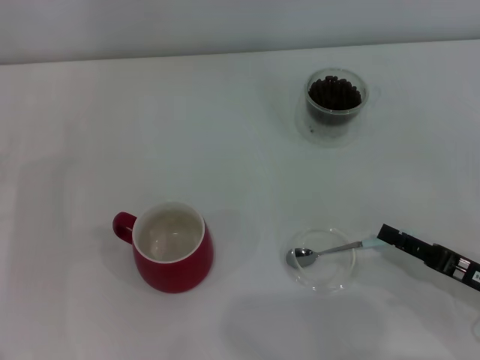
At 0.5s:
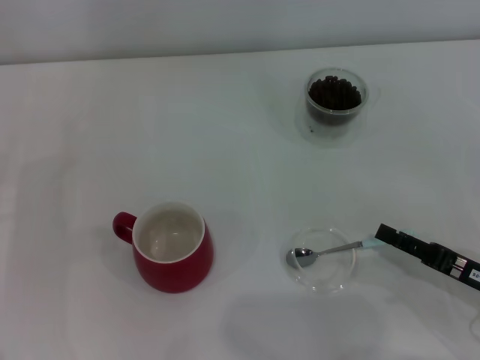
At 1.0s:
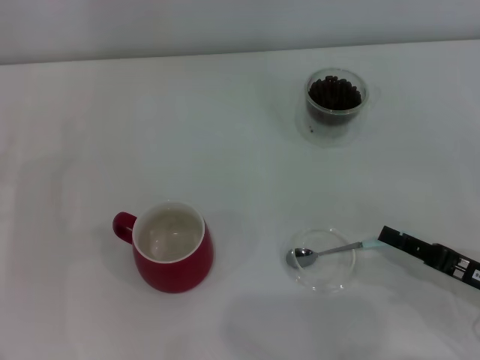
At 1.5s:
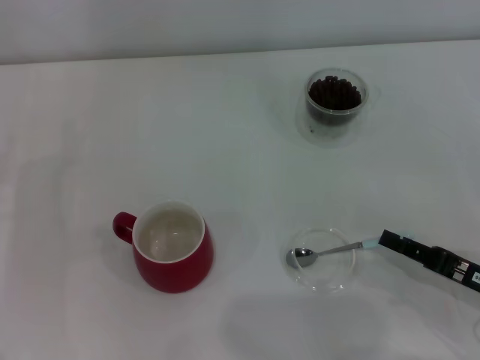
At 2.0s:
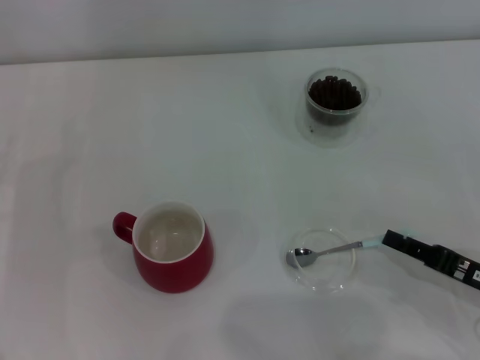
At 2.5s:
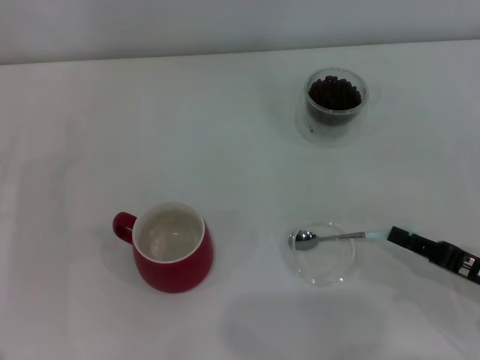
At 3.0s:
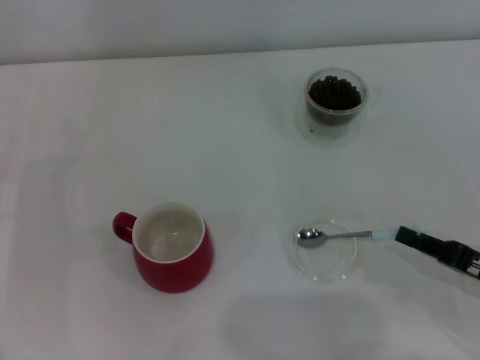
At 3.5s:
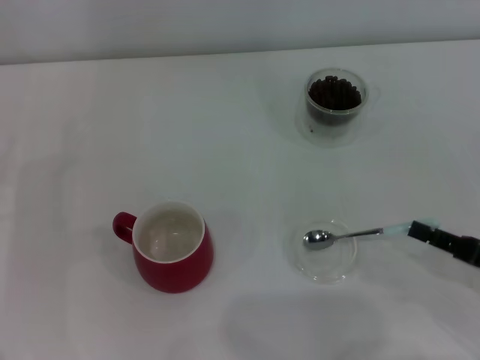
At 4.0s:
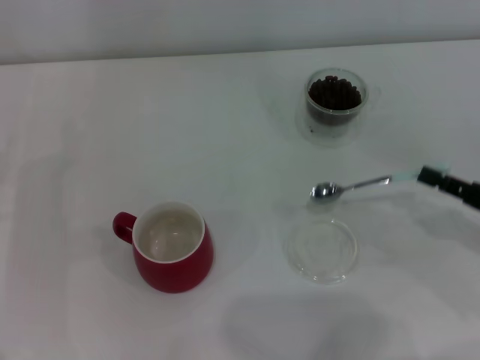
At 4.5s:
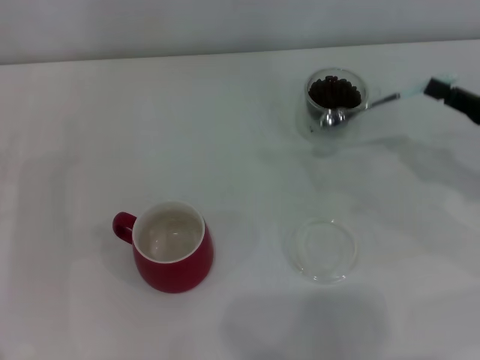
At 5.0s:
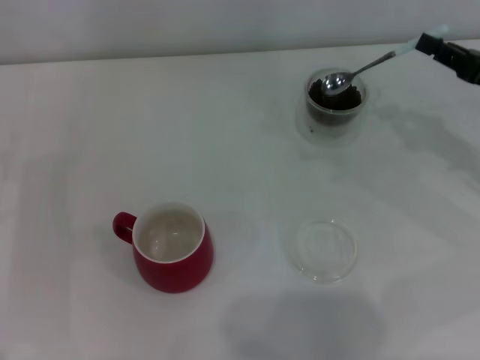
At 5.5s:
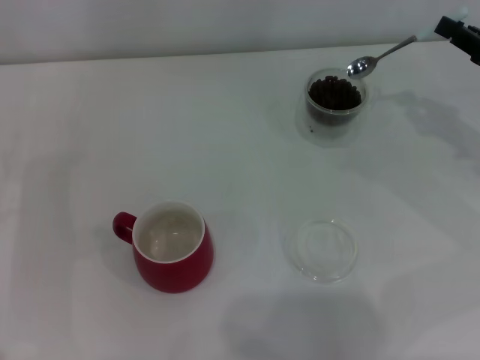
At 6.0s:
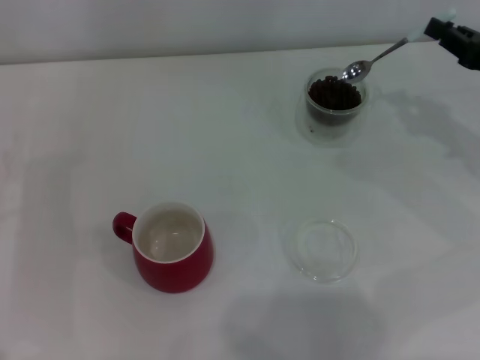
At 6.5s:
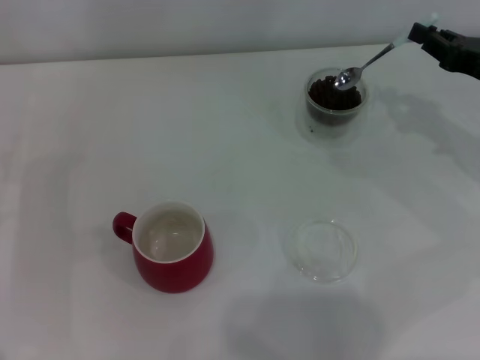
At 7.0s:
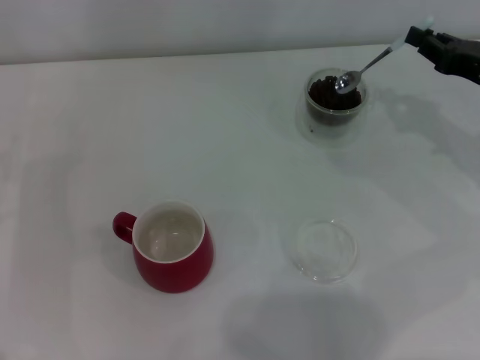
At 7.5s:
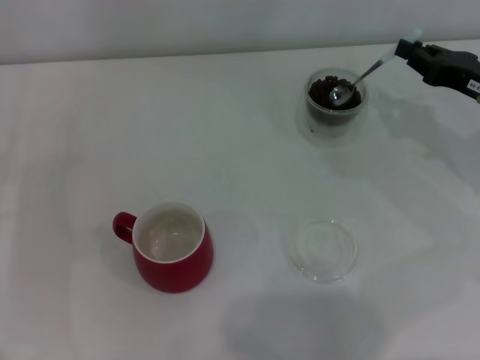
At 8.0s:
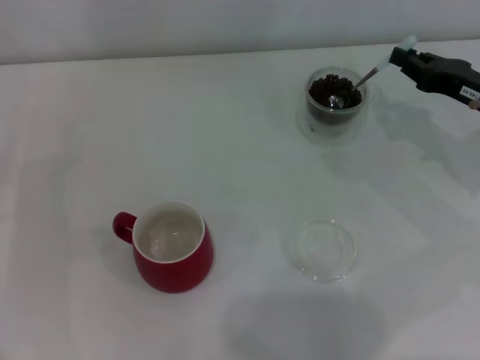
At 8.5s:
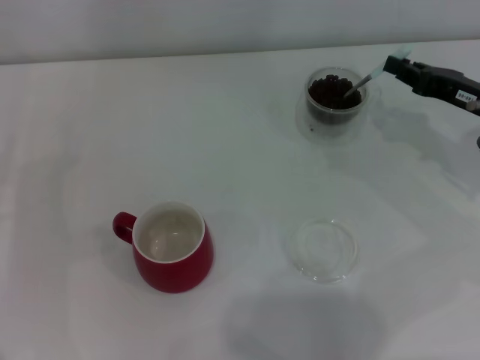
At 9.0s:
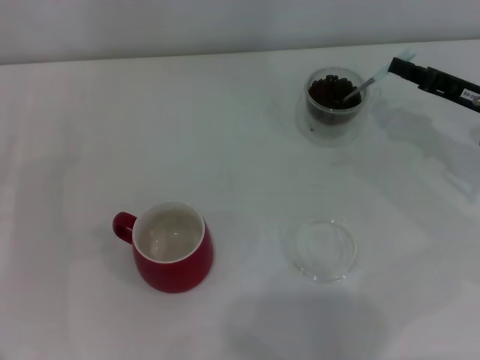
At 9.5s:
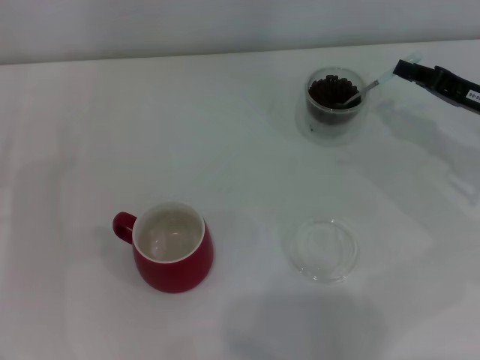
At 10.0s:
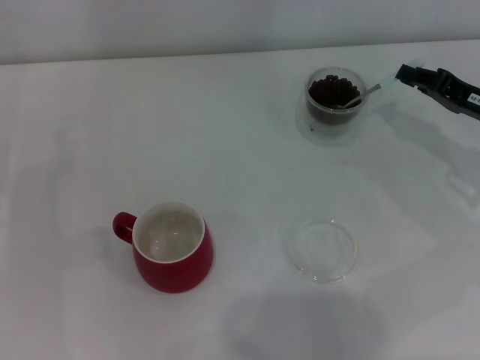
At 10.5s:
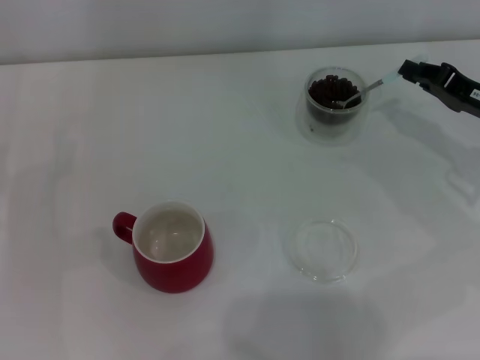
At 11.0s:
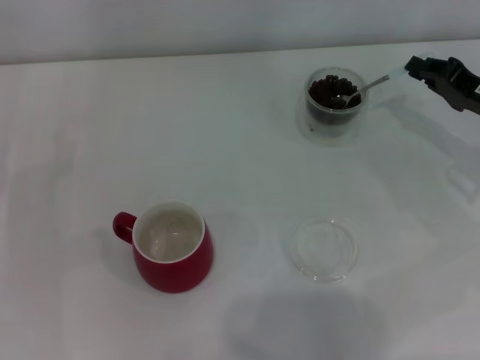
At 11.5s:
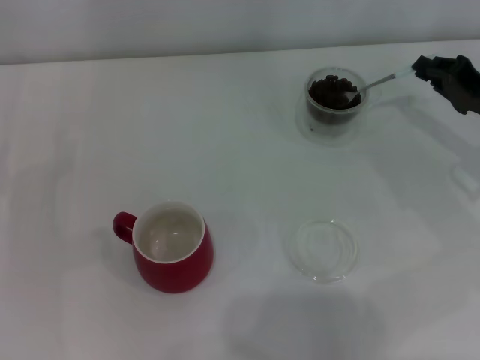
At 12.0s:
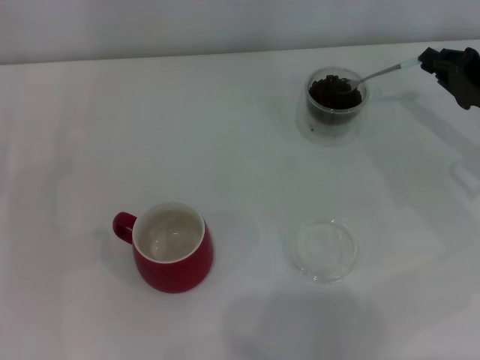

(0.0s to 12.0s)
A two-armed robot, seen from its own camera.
Task of the whole recording: Use a blue spoon to take out the coffee beans from the glass and pour them into the red cup.
Step, 0.0s - 3.5s: Pick up the spoon with the right gripper.
2.0s - 4.0s: The right gripper moves some 5 cm.
4.0s - 6.0s: The right gripper heads forward and upward, covering roughly 15 cm.
6.0s - 8.0s: There are only small adjustments of the grippers.
10.0s - 12.0s: The grippers move only a little.

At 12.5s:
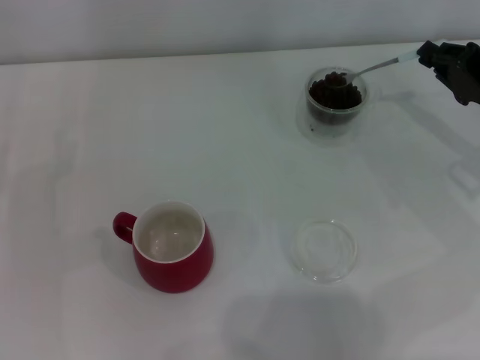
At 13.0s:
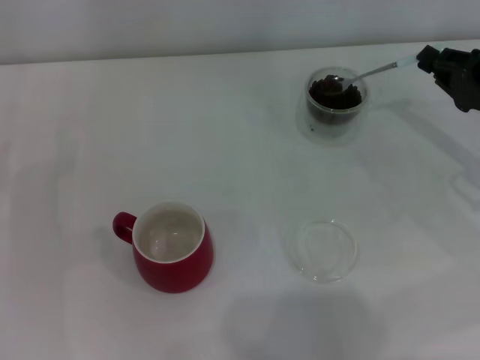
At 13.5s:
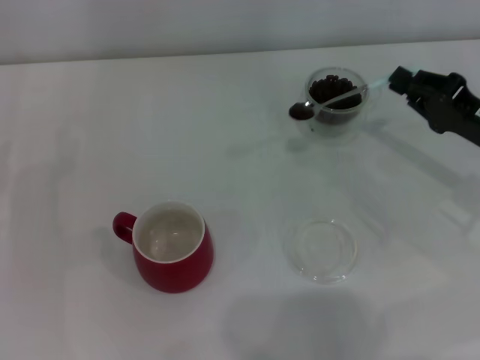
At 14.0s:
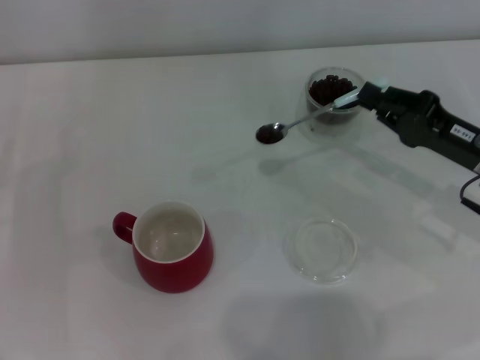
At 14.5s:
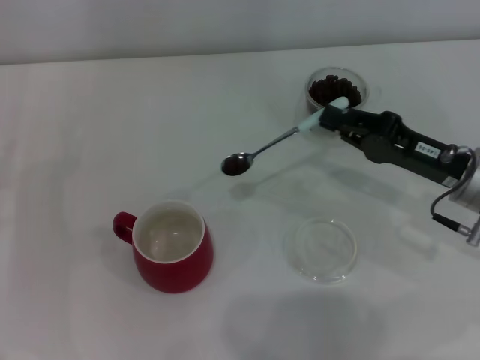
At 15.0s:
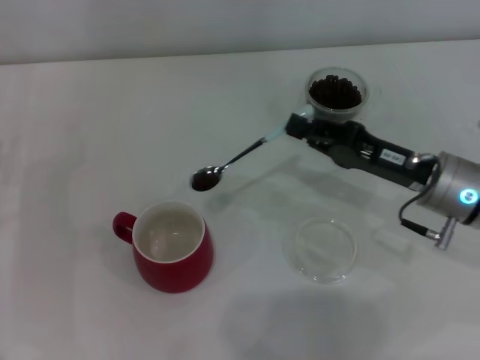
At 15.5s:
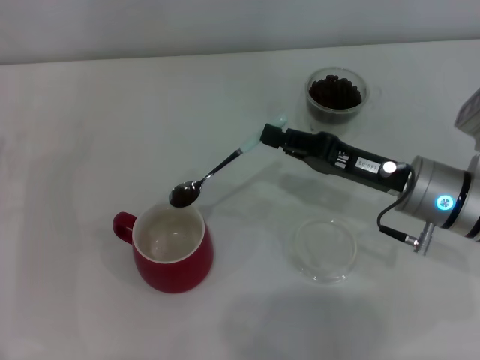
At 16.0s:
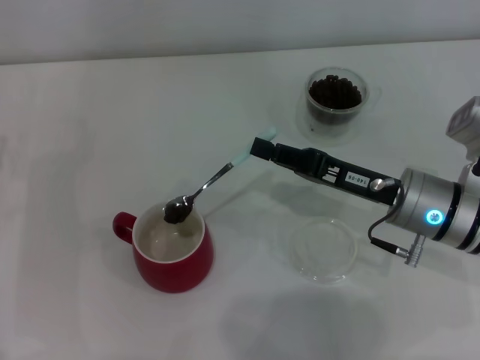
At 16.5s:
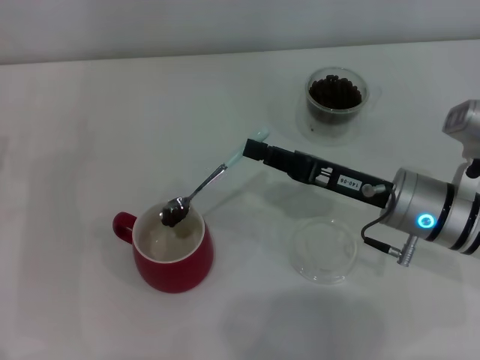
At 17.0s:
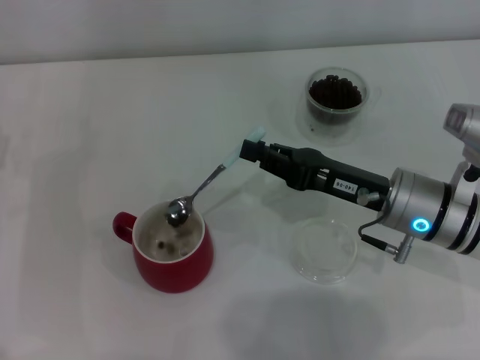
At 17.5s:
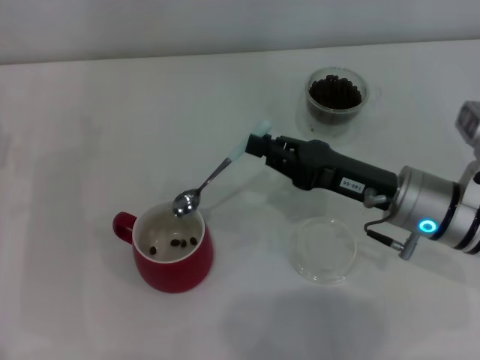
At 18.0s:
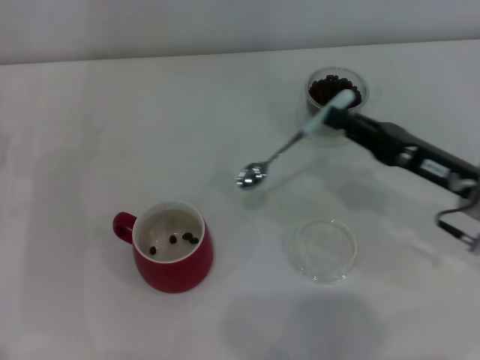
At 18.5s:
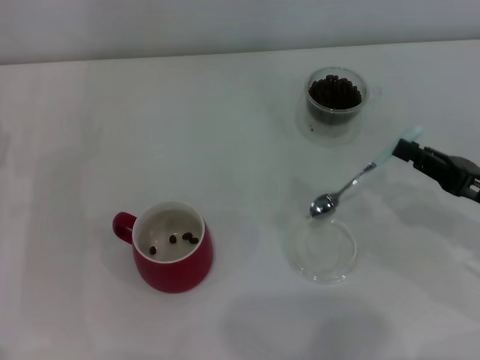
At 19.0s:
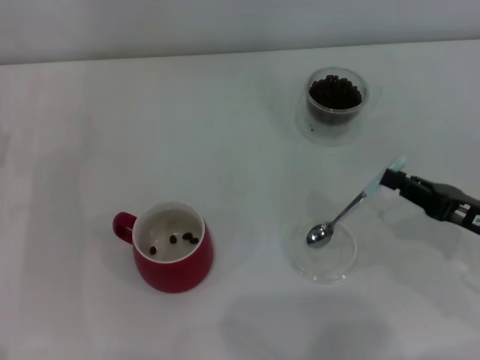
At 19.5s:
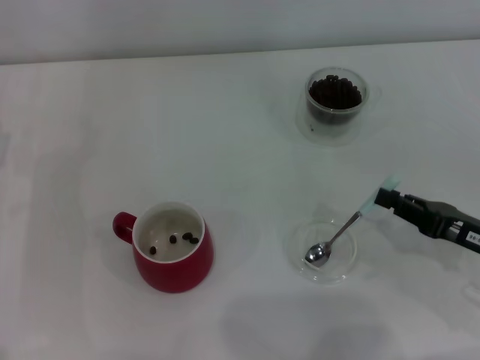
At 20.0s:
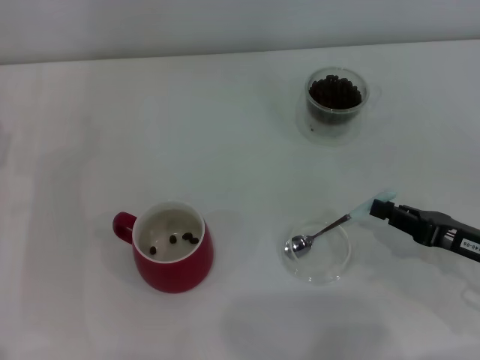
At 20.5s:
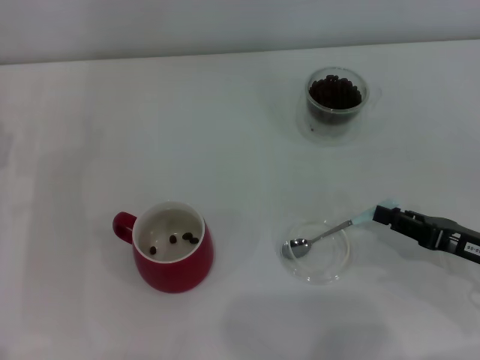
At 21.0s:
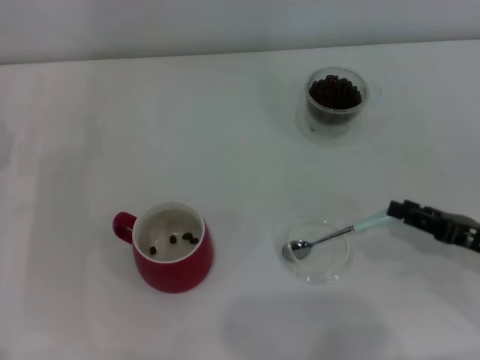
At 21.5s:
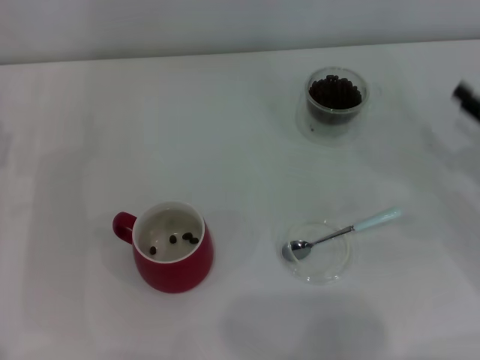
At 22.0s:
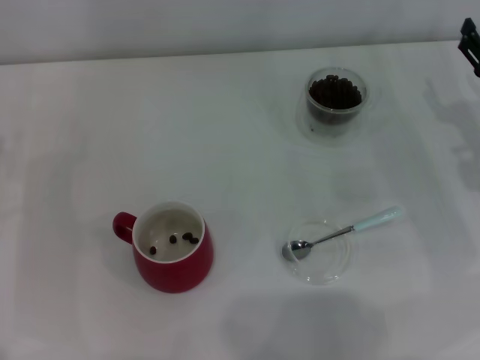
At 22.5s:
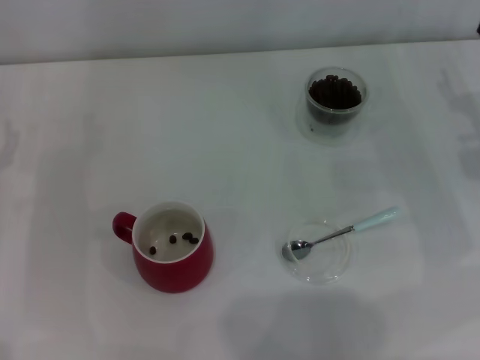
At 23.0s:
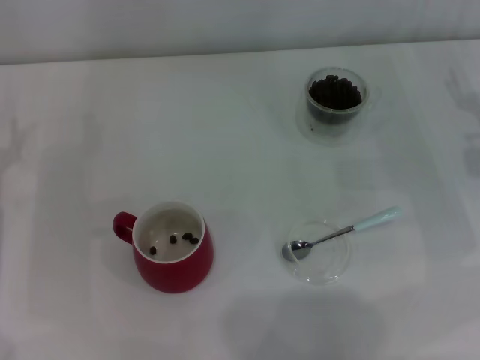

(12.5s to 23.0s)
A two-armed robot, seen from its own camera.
Task of the whole recording: Use a blue spoon to take out the coffee beans from the glass and pour them into the red cup.
Step, 12.5s - 17.0s: Scoop a spoonful of beans into the cup with the right gripper.
Step, 17.5s - 20.5s: Place the spoon back in its original place with the right gripper.
12.5s - 14.5s: The right gripper shifts roughly 10 cm to the left.
14.5s - 16.5s: The right gripper shifts approximately 5 cm to the left.
16.5s - 19.0s: The right gripper heads to the right and backward, covering some 15 cm.
19.0s - 21.0s: The right gripper opens.
21.0s - 23.0s: The right gripper shifts approximately 15 cm forward and upward, and opens.
